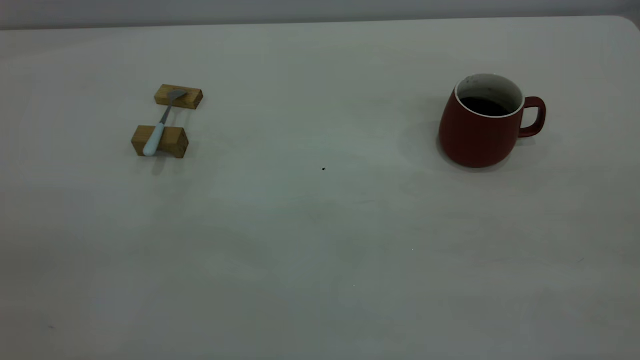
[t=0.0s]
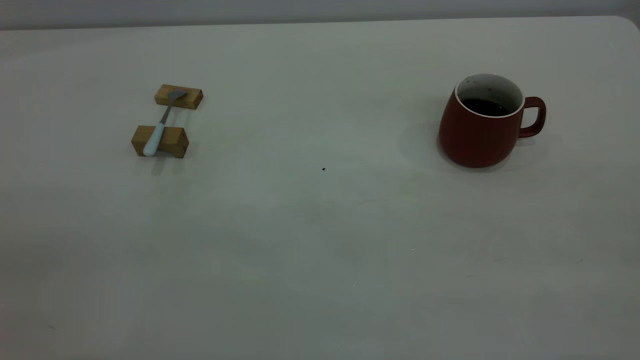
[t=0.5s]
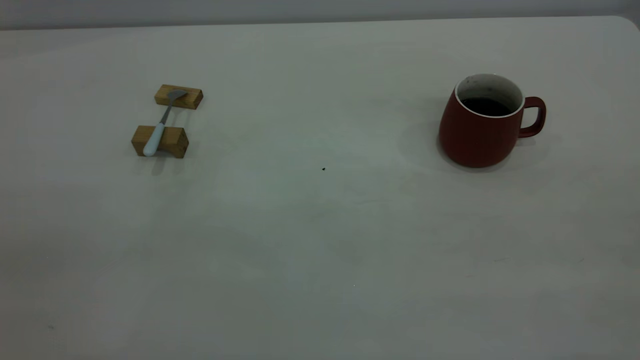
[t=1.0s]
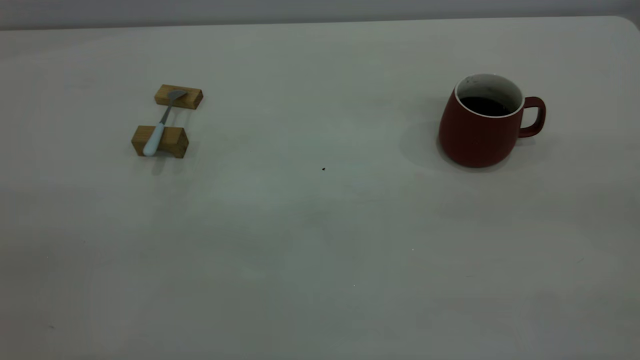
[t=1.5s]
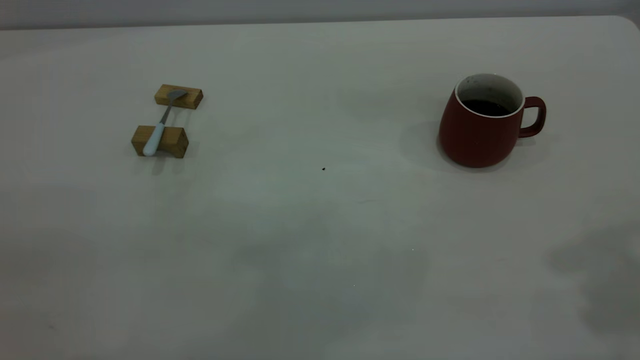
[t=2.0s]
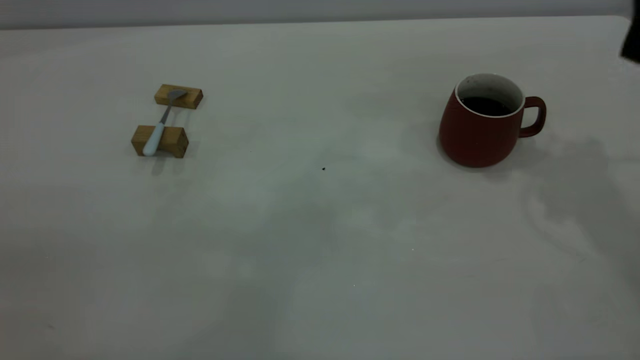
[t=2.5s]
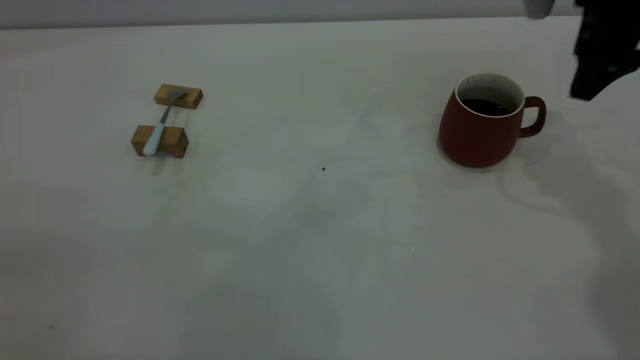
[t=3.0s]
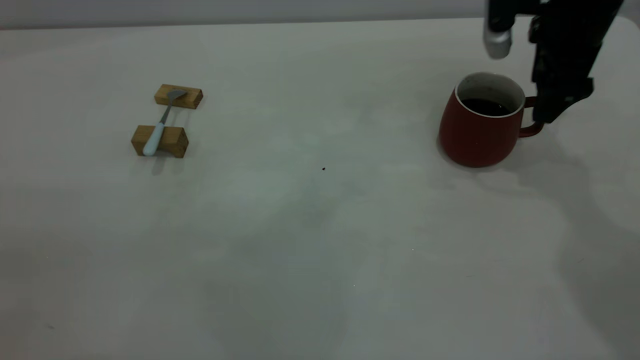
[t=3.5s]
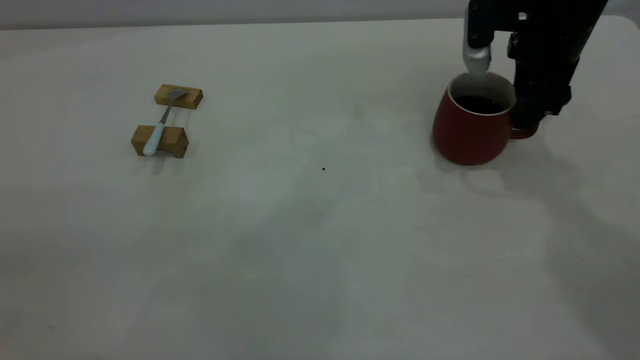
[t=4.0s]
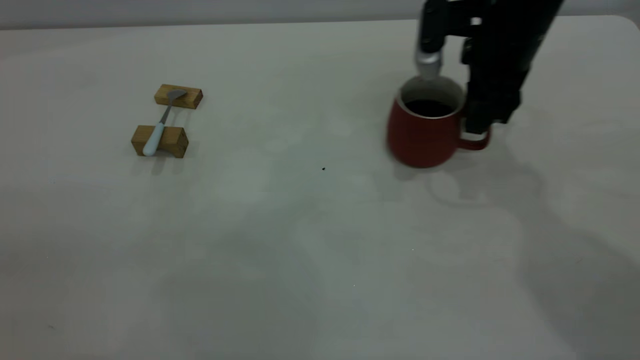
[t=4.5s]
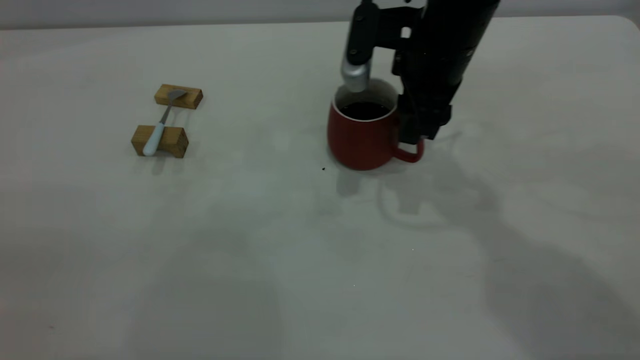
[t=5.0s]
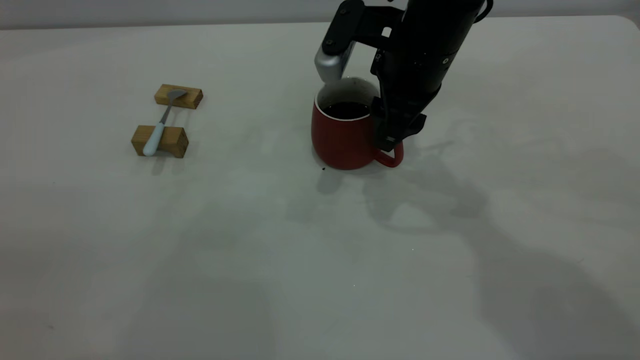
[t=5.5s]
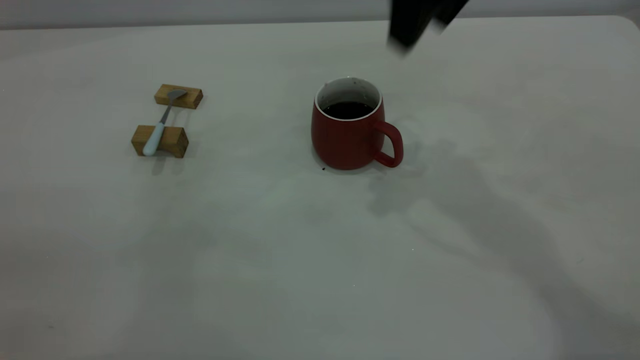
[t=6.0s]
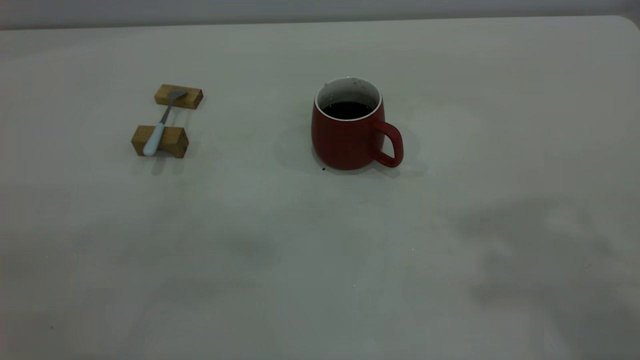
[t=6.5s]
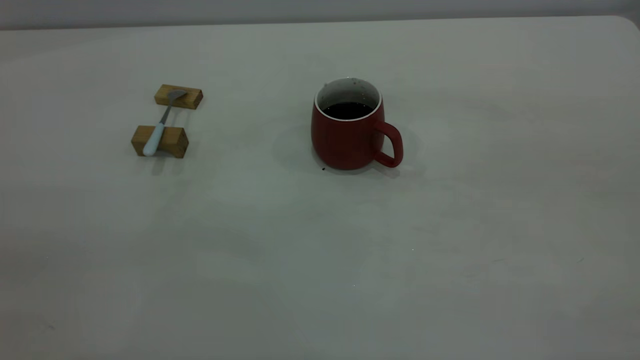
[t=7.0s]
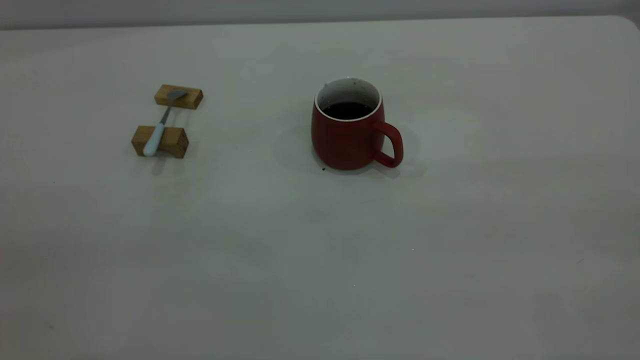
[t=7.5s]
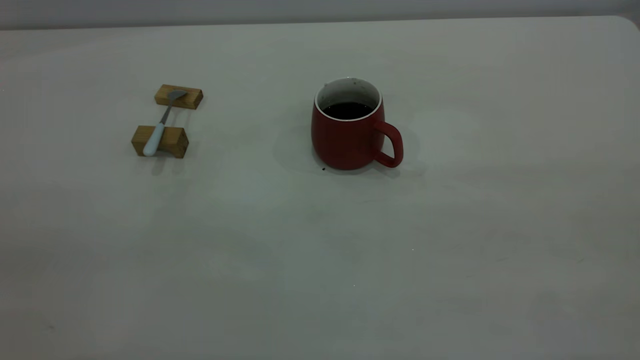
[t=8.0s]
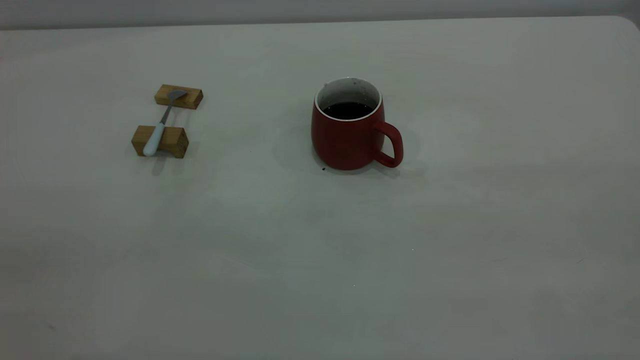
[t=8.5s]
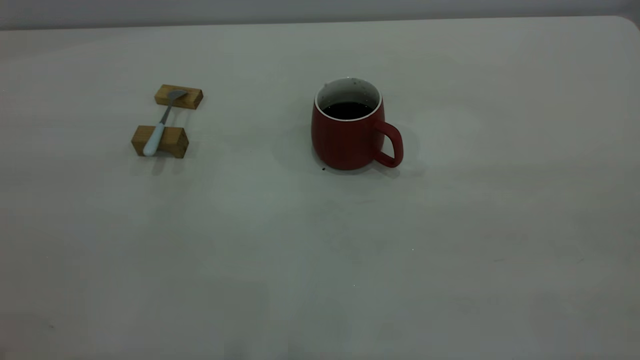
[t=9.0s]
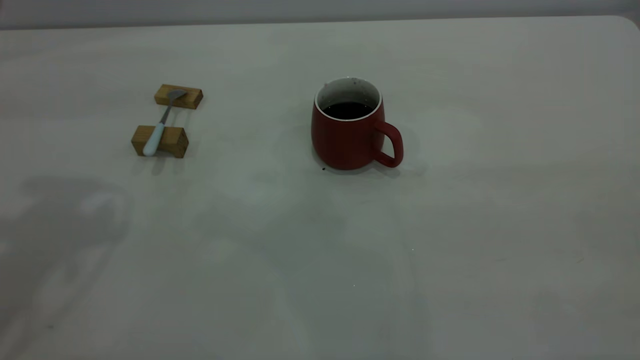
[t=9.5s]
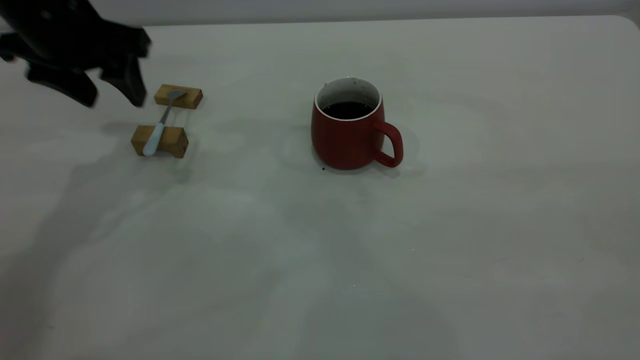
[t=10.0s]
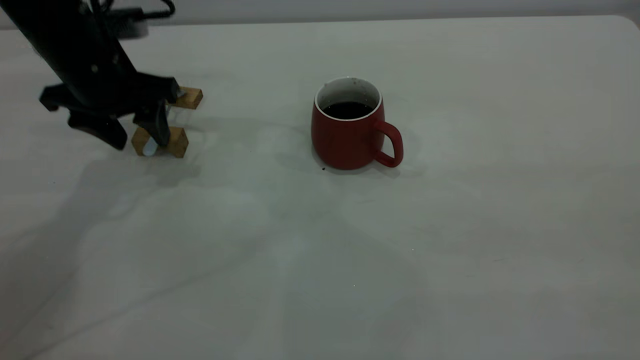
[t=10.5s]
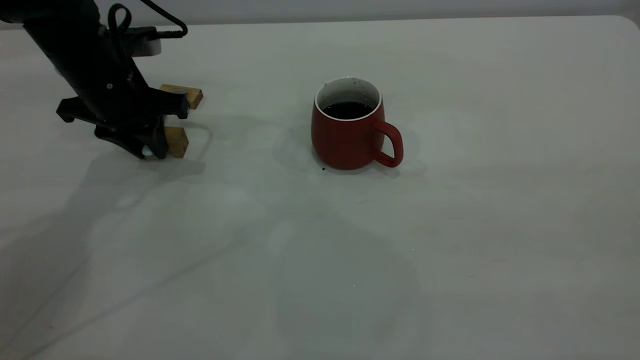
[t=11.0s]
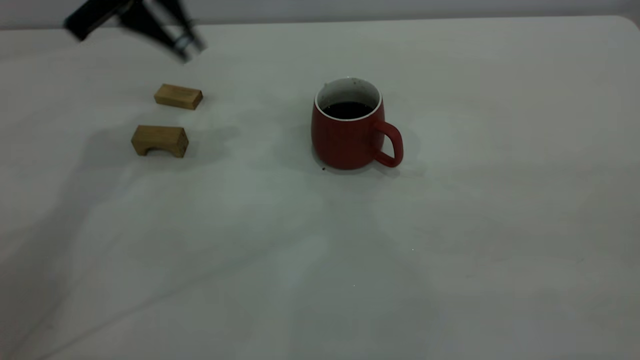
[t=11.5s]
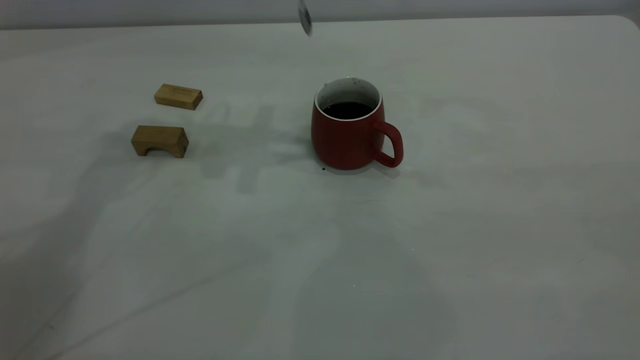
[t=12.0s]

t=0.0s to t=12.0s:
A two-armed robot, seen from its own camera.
Step, t=0.0s to t=5.5s: Move the cup with coffee to the center of view.
Step, t=6.0s to t=11.0s: Pick up the spoon.
t=2.0s to t=4.0s: The right gripper goes approximately 30 cm downward and forward, and closes up.
t=4.0s to t=6.0s: The right gripper heads upward and to the left, covering some 20 cm, and opens its fingers.
t=6.0s to t=8.0s: The right gripper is displaced backward and to the right by about 40 cm.
t=8.0s to t=10.0s: The left gripper moves forward and downward, approximately 40 cm.
t=10.0s to t=12.0s: The left gripper shifts some 15 cm to the right and upward, and closes up.

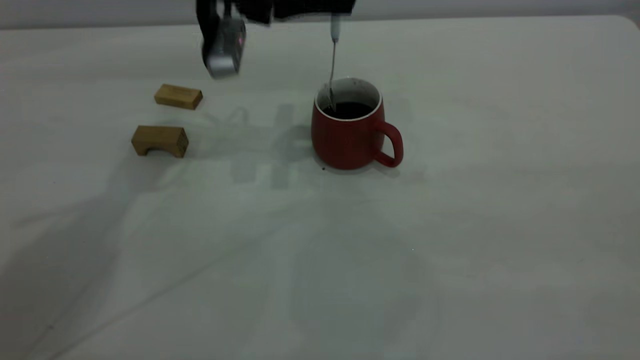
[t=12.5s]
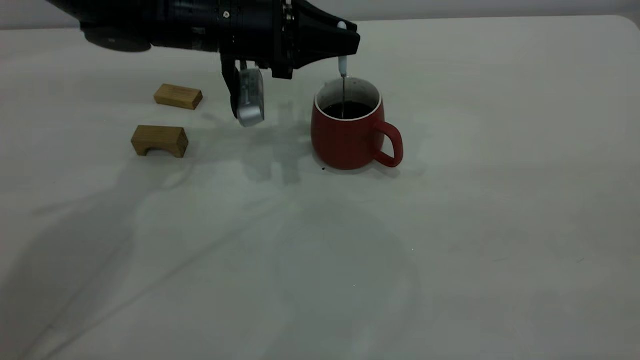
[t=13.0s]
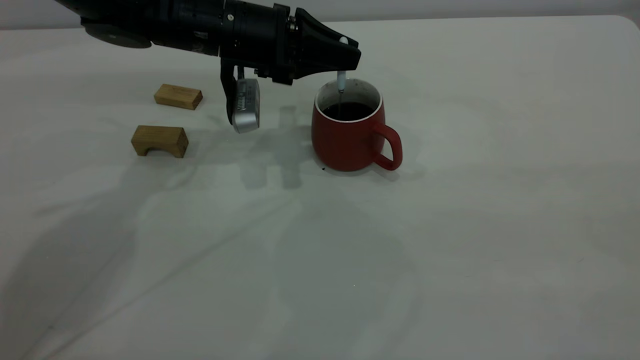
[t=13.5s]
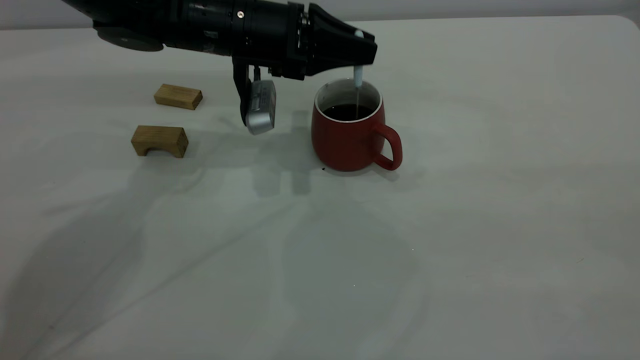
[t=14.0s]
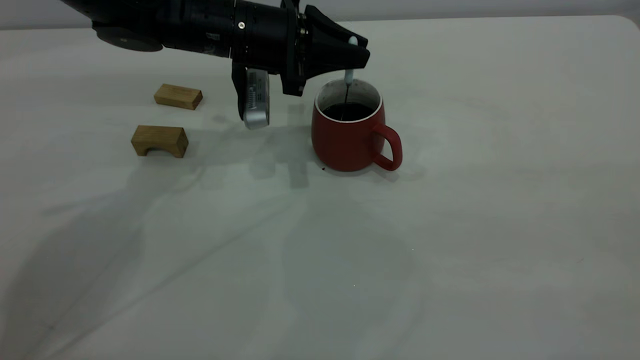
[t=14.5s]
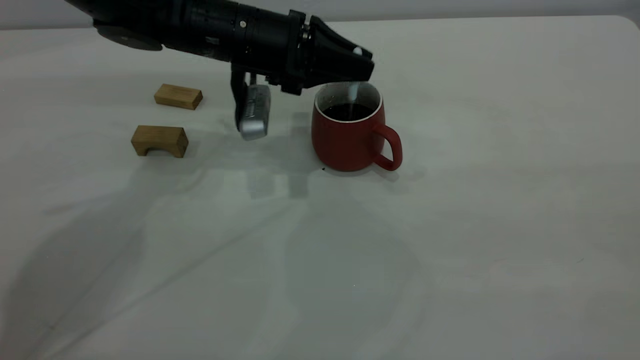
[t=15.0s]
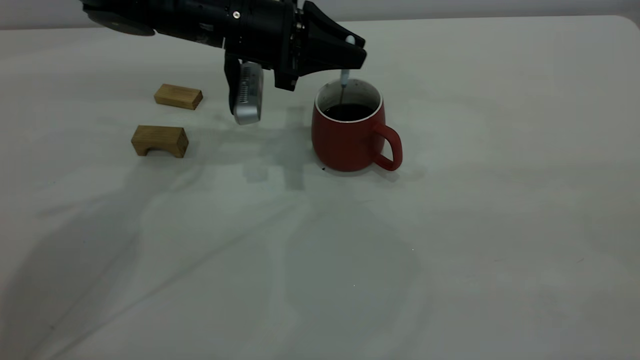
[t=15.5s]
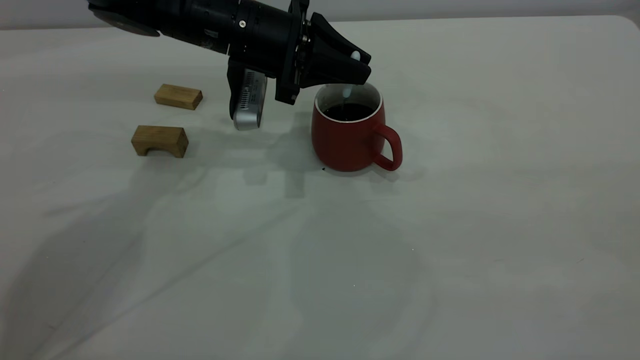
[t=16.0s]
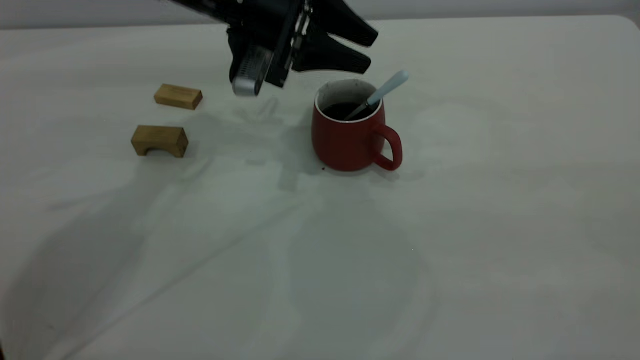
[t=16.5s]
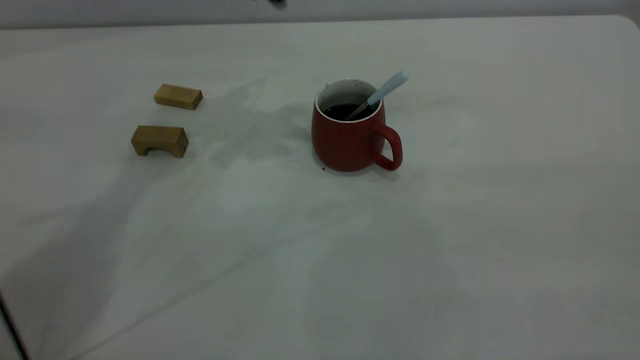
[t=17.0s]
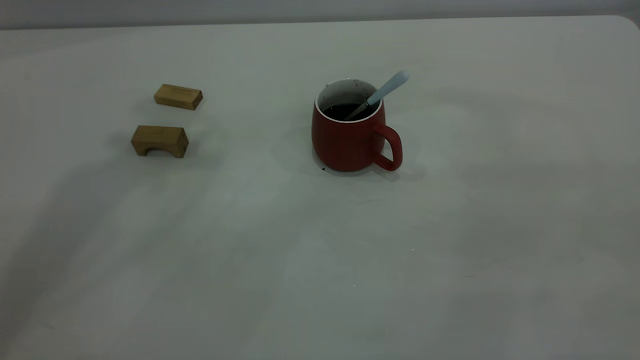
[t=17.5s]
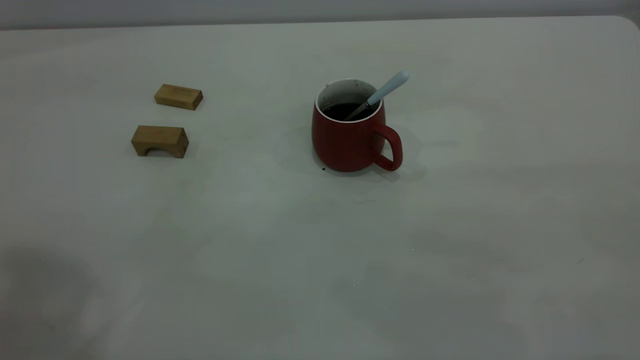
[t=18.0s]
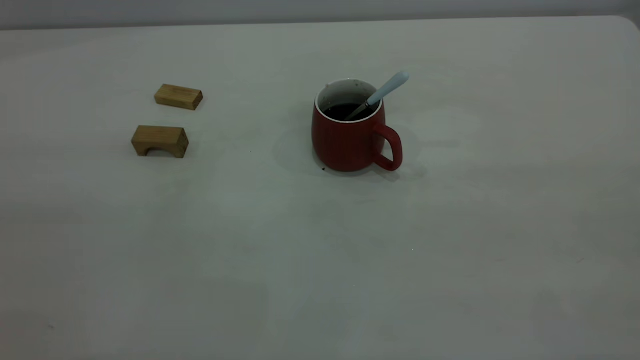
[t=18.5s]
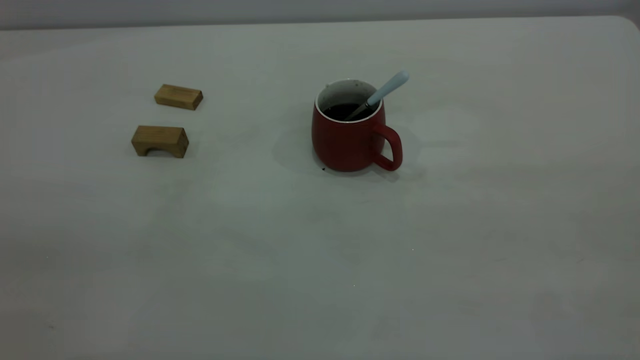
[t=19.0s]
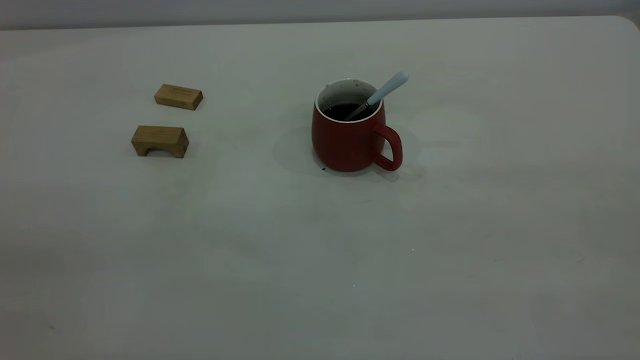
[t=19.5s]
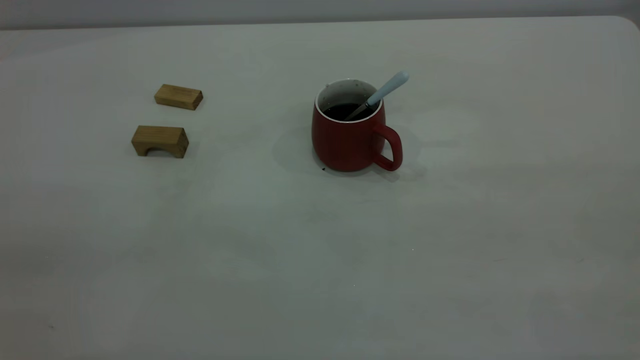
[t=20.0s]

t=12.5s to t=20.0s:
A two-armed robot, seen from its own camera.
Step, t=12.5s to t=16.5s: Stir the coffee in the cup.
t=12.5s to t=14.5s: The left gripper heads downward, covering about 5 cm.
t=14.5s to t=16.5s: The left gripper opens.
t=16.5s to t=18.0s: The left gripper moves upward, backward and to the left, about 50 cm.
